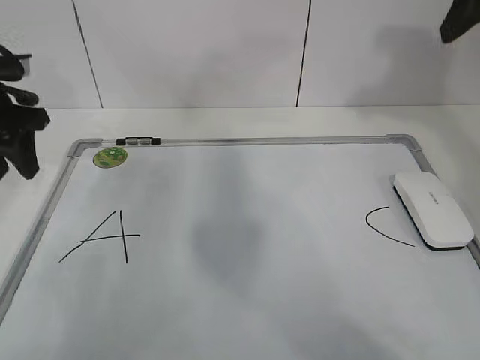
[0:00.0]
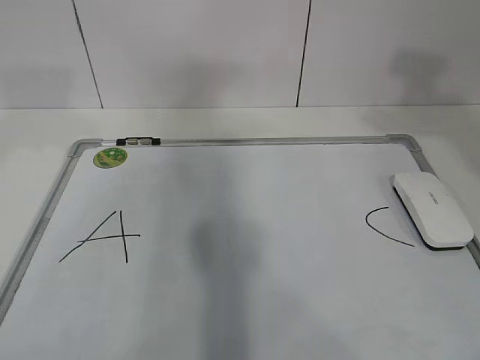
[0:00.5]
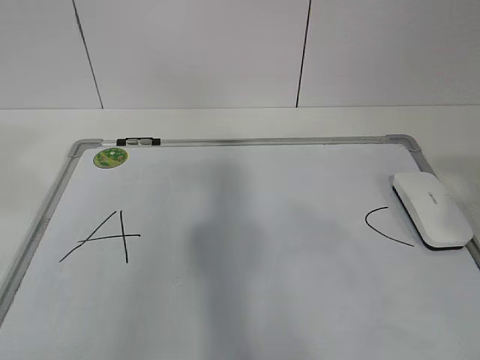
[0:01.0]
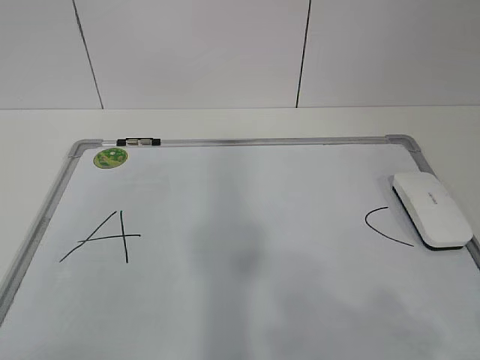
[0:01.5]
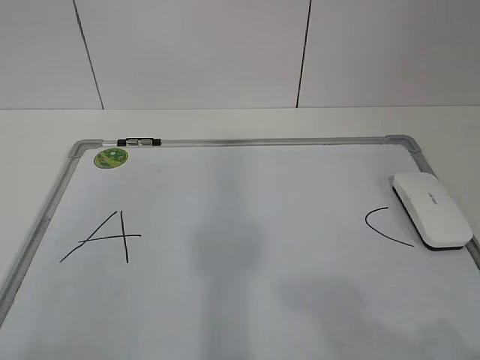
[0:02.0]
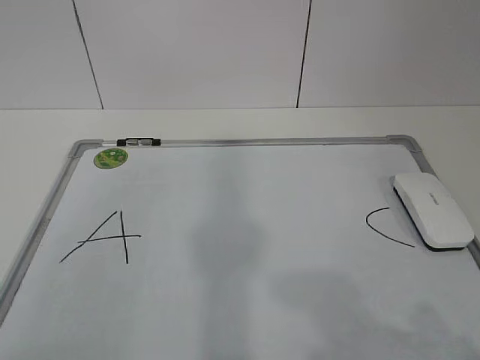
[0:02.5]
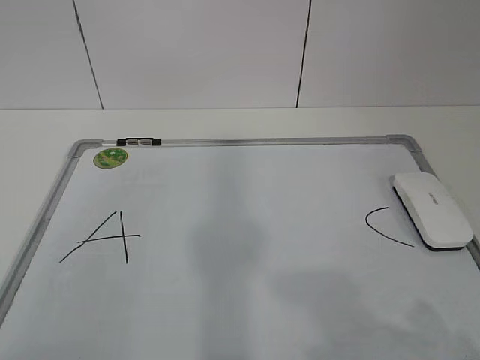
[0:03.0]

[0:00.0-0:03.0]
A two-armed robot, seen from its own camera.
Task of the whole recording: pick up the eraser on the blackboard and erase the letter "B".
0:00.0 to 0:01.5: Both grippers travel together backward, about 35 cm.
